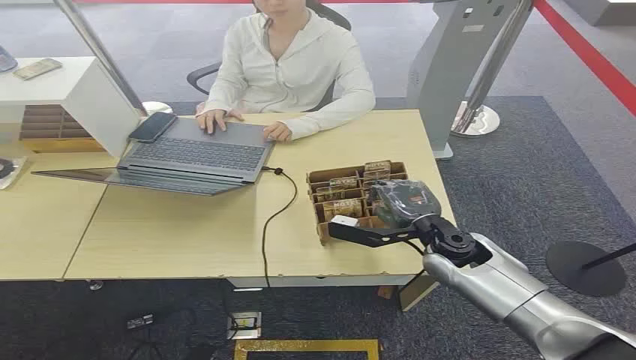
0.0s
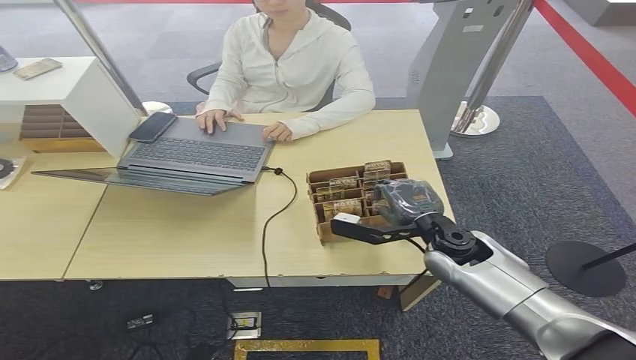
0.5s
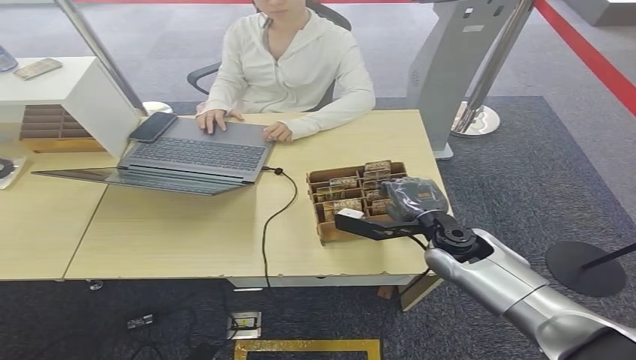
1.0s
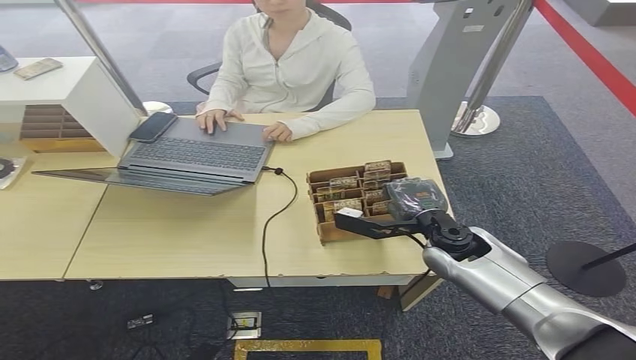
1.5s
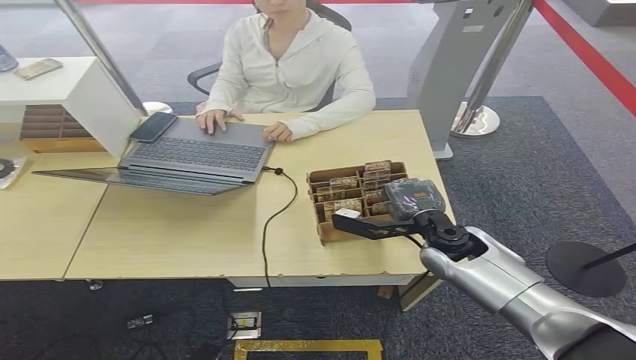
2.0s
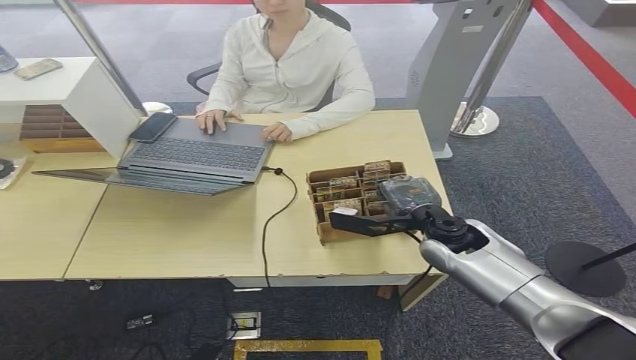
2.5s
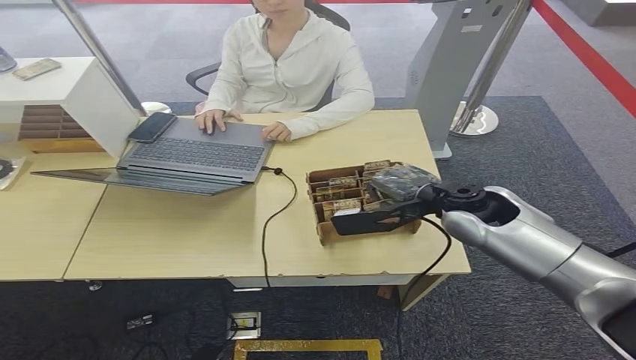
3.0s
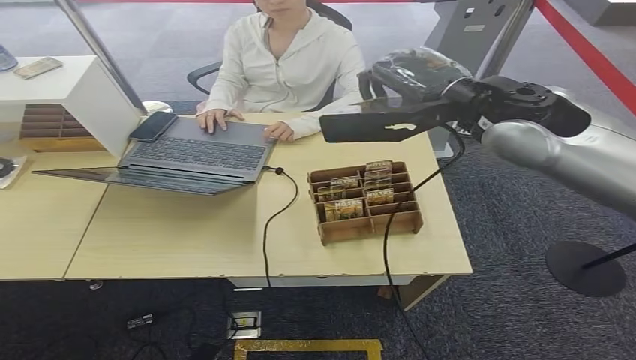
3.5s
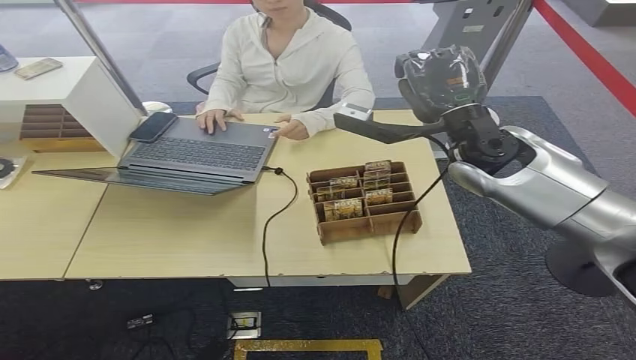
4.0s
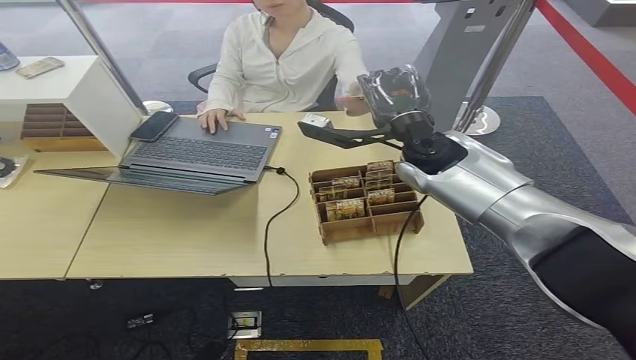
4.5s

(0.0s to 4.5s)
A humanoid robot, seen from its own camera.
Step, 0.0s - 2.5s: Pick up the room card from the card holder.
Step, 3.0s - 4.5s: Hand the room card to the target.
